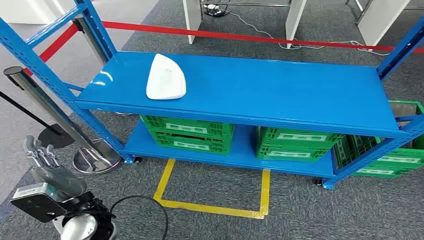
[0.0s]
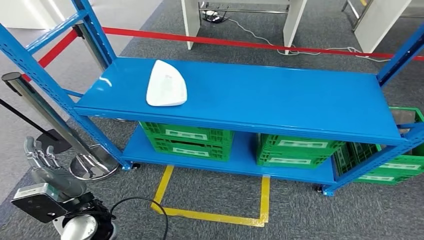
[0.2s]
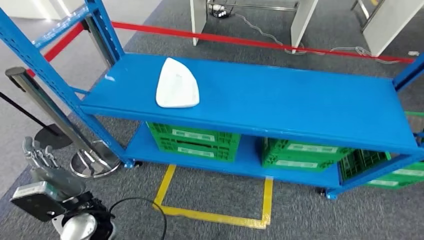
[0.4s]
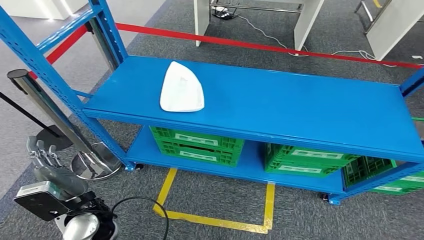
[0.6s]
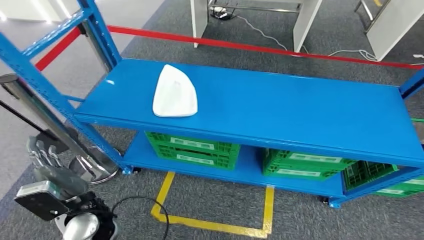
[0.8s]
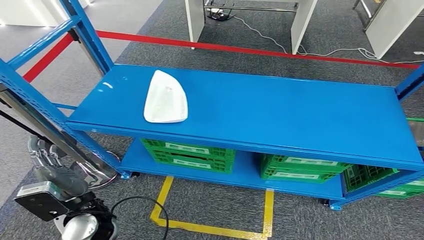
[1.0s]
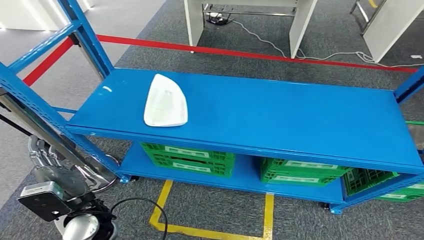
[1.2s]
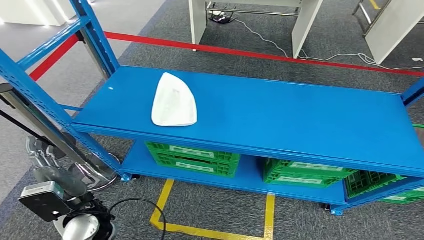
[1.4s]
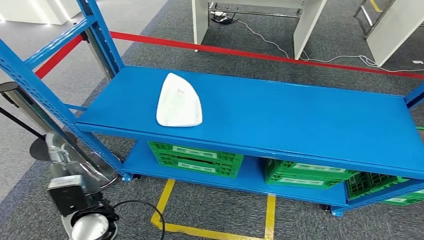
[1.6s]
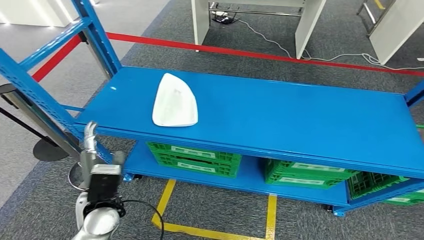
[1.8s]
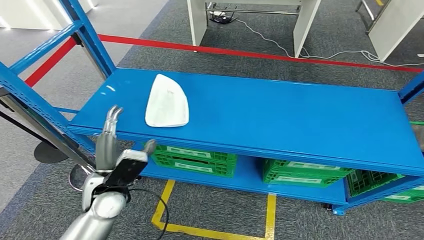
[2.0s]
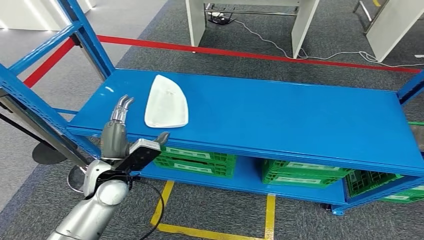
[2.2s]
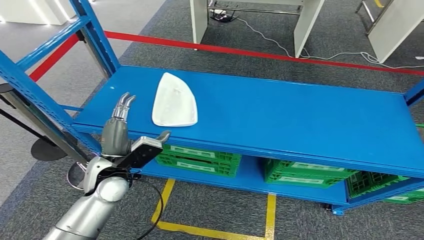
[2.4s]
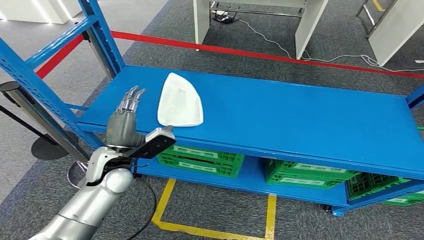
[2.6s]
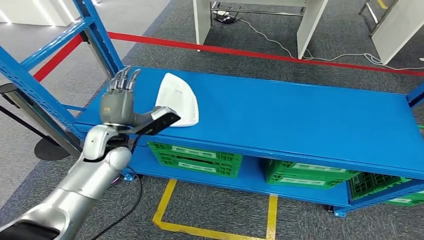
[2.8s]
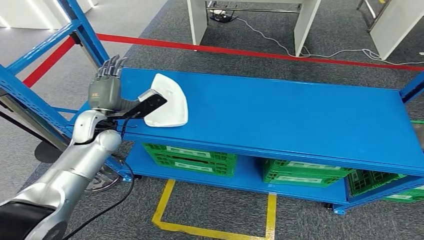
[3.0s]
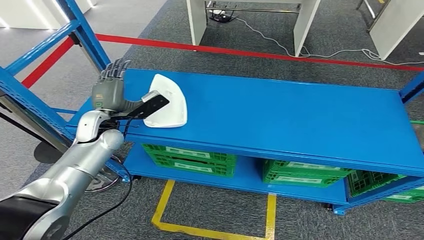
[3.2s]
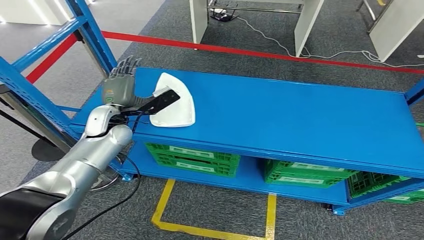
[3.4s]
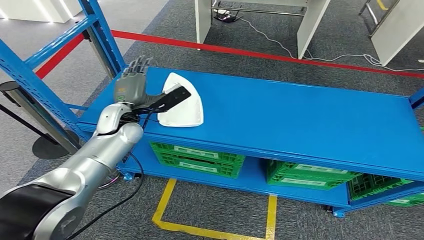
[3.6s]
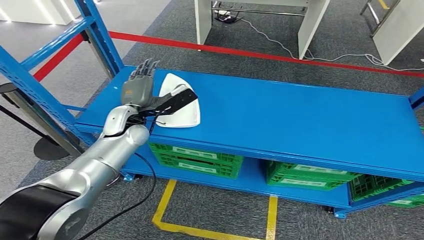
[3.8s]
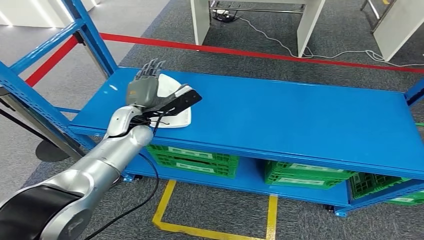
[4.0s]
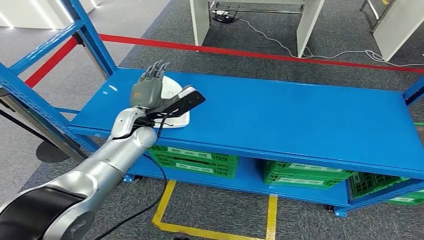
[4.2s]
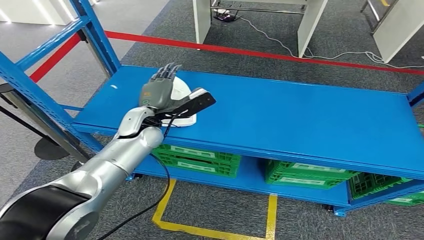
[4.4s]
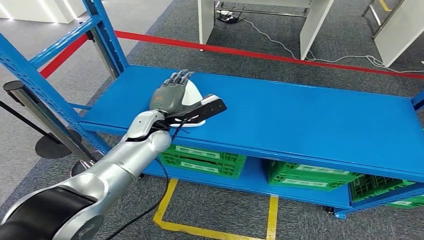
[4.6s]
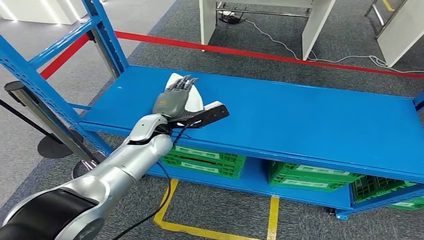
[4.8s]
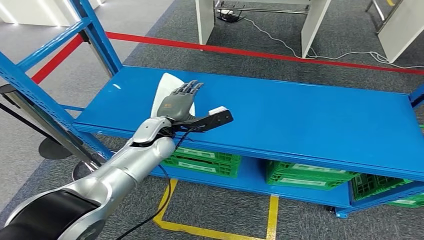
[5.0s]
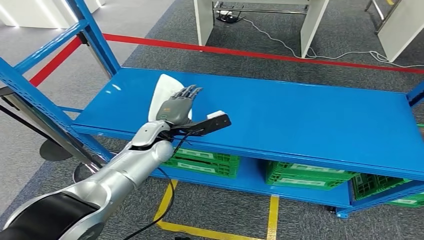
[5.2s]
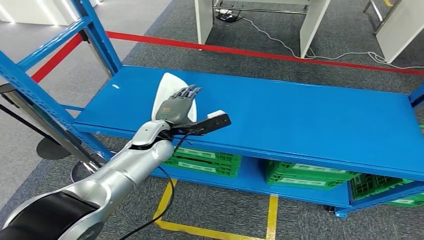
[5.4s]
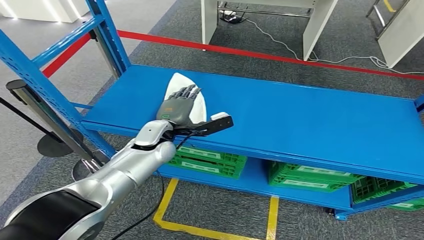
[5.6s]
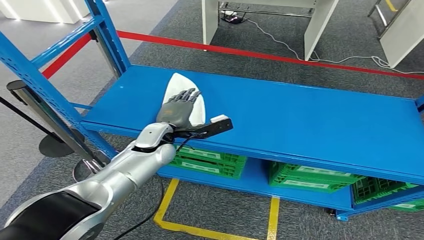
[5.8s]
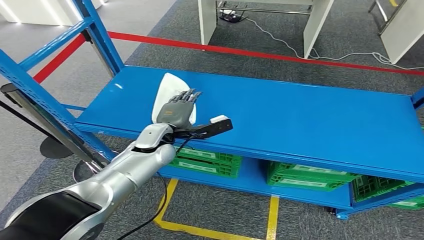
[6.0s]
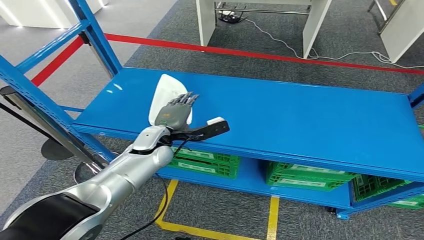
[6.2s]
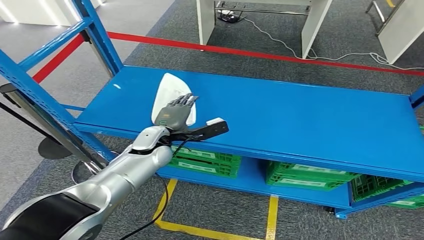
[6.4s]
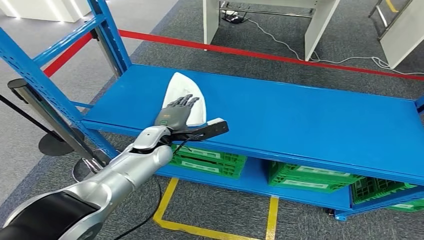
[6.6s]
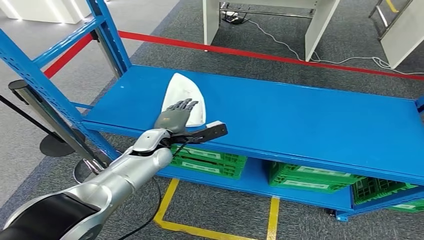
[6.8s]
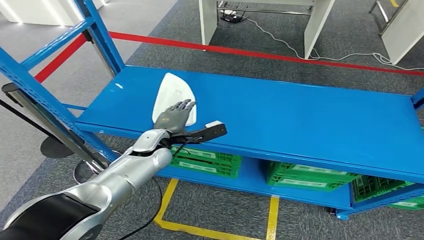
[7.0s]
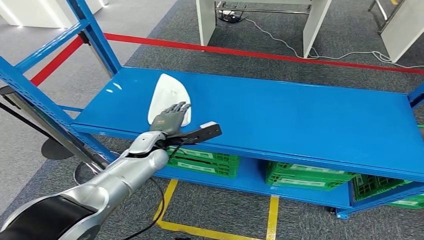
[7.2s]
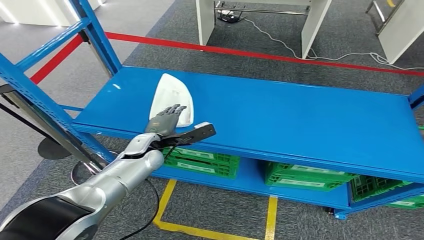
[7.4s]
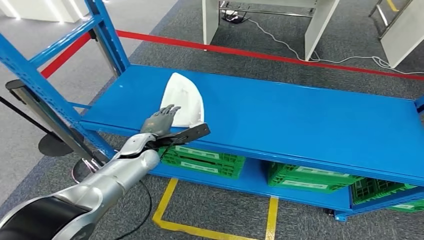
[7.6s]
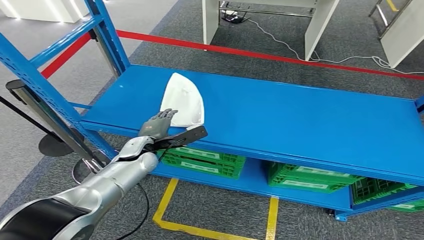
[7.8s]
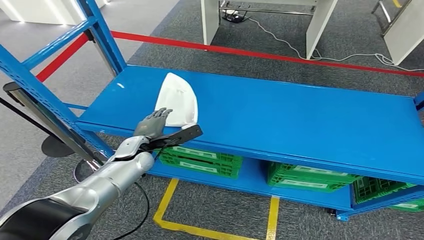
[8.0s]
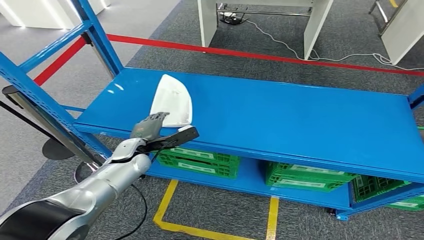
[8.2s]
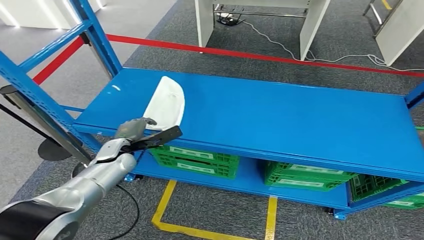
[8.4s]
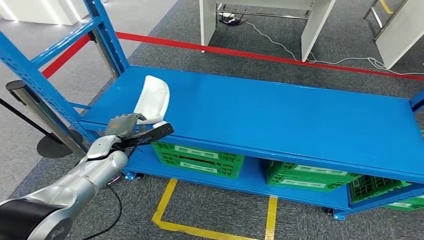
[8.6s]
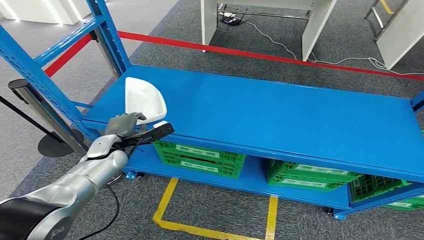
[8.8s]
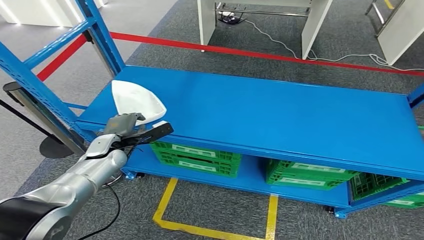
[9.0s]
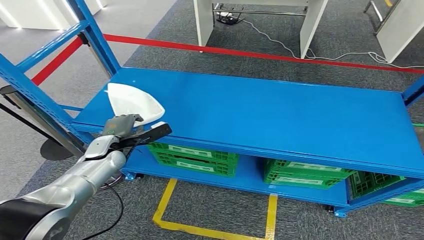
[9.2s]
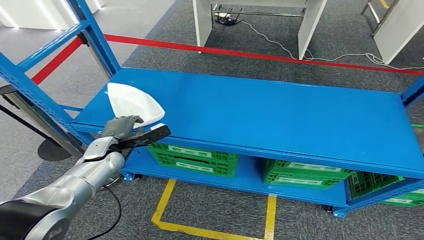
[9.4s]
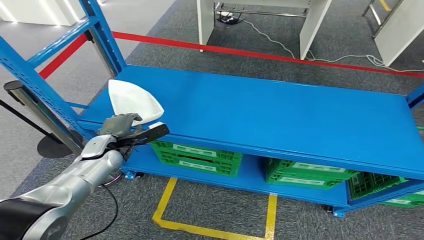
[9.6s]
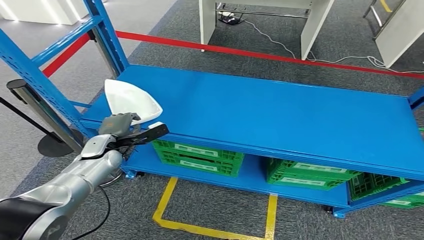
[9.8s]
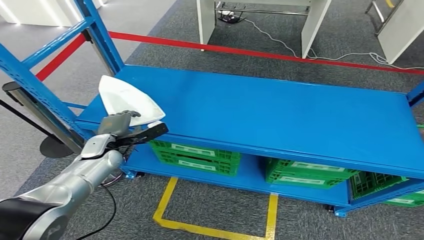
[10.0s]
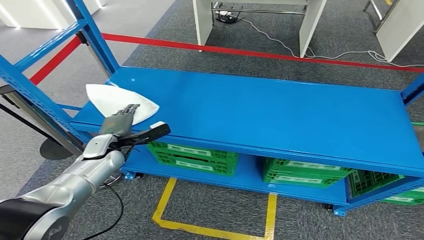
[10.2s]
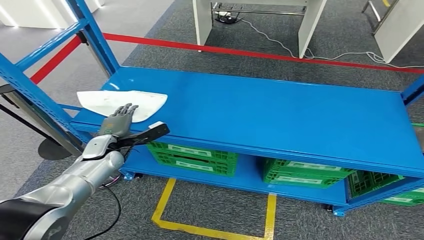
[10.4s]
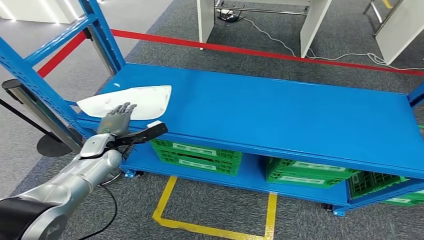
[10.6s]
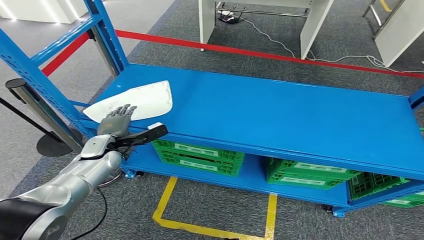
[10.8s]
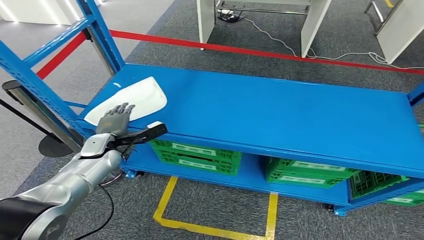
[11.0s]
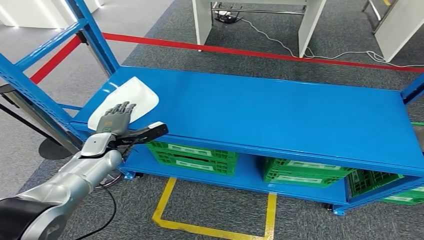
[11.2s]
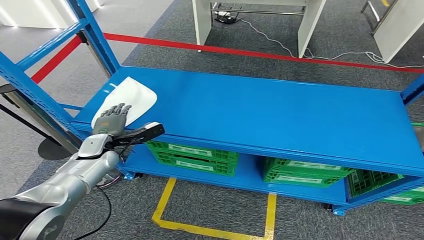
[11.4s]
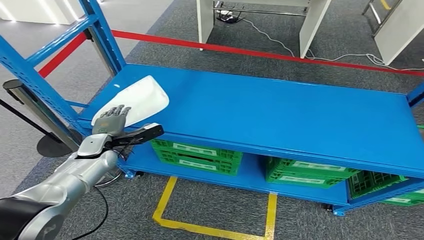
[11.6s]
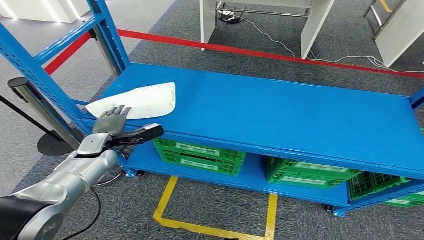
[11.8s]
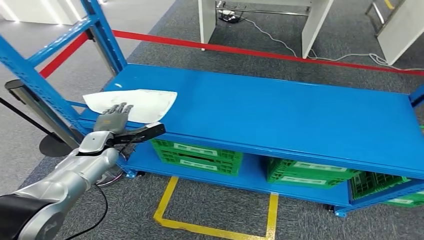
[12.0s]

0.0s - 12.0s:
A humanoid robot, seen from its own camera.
6.0s - 7.6s: The left hand moves about 5 cm.
9.0s - 10.4s: Both hands stay about where they are.

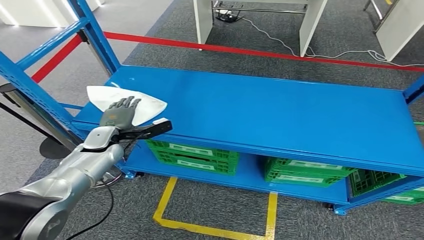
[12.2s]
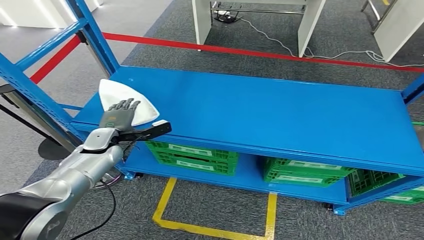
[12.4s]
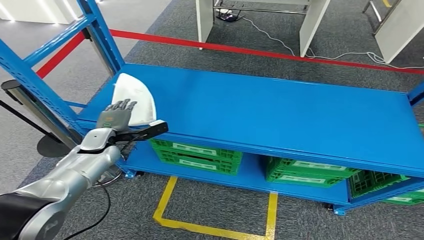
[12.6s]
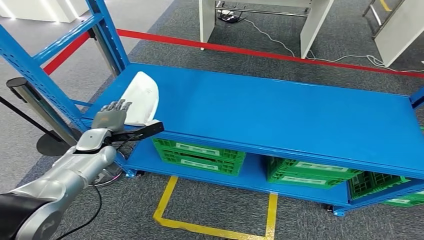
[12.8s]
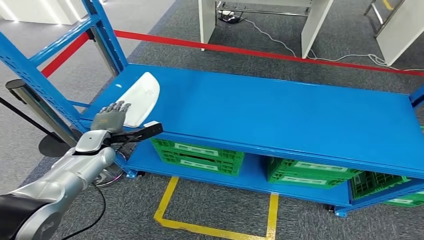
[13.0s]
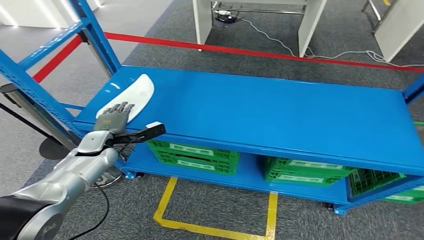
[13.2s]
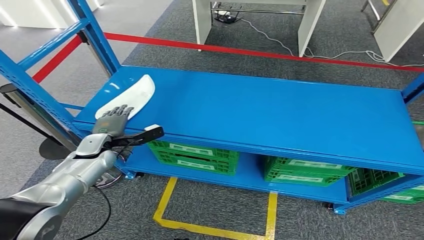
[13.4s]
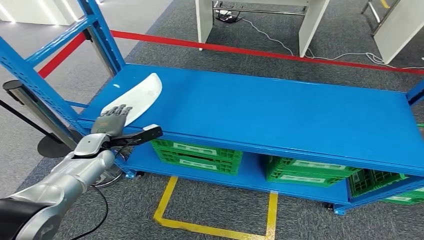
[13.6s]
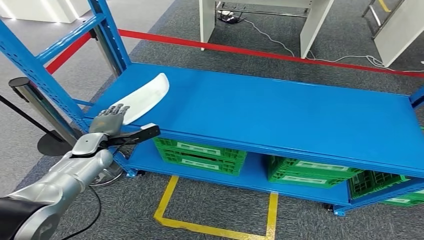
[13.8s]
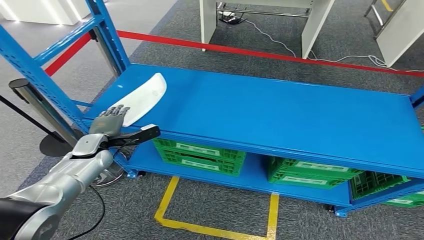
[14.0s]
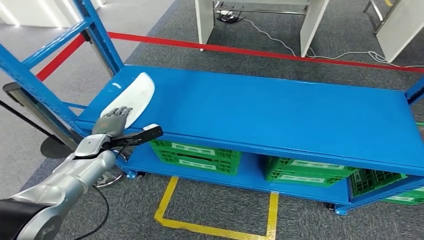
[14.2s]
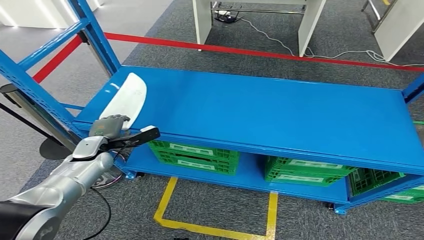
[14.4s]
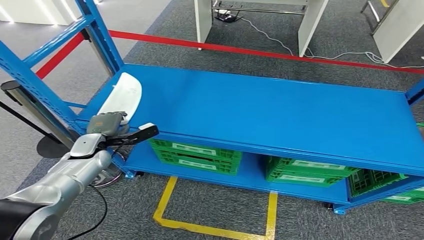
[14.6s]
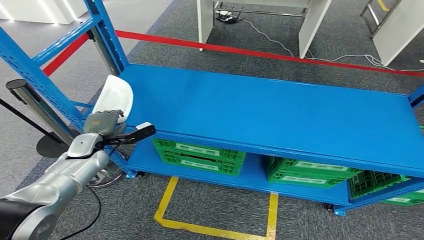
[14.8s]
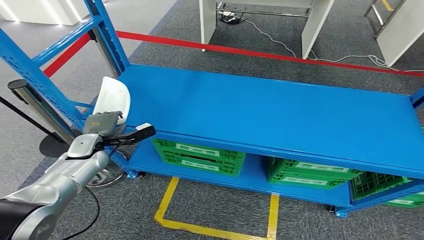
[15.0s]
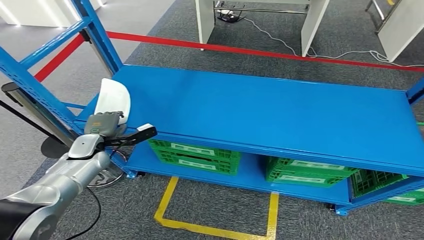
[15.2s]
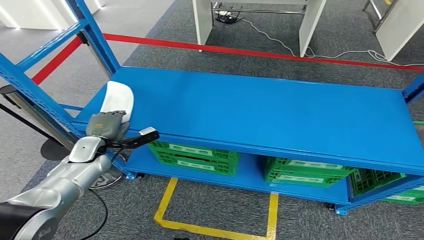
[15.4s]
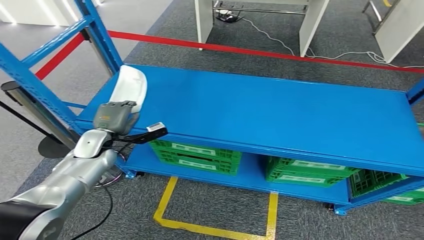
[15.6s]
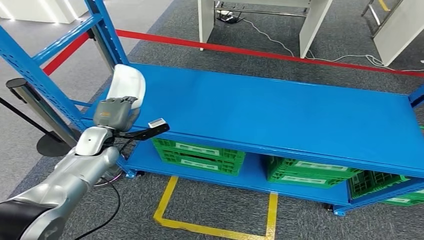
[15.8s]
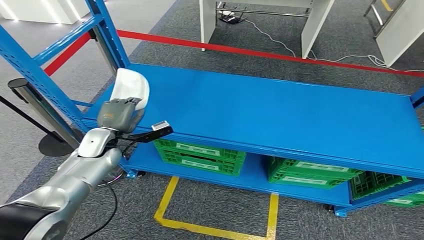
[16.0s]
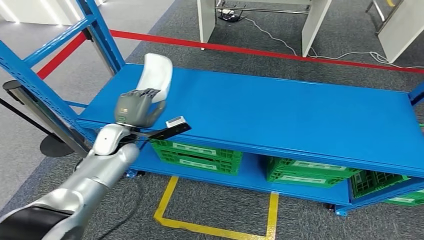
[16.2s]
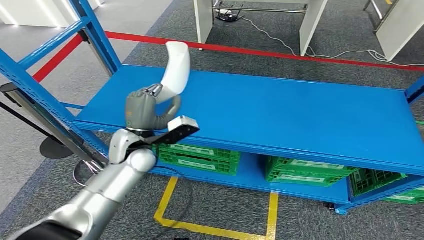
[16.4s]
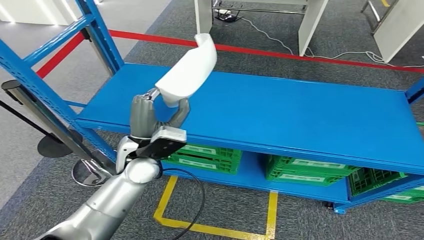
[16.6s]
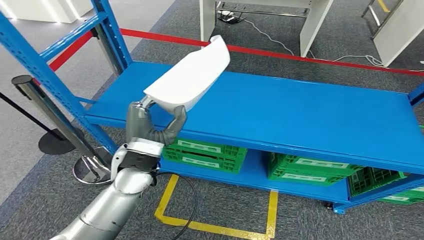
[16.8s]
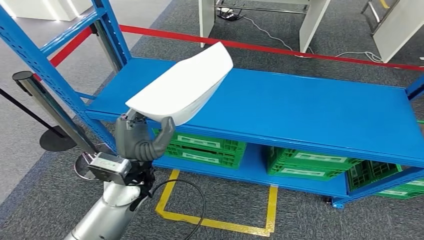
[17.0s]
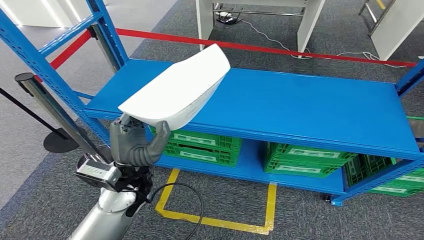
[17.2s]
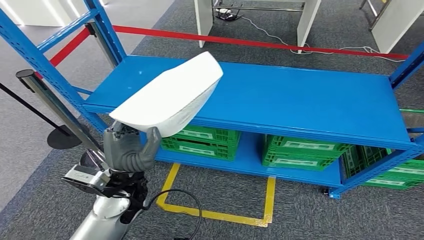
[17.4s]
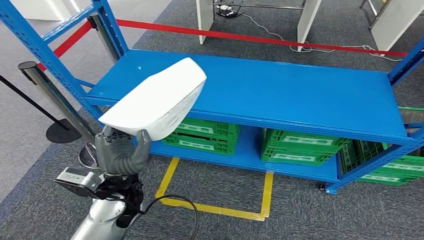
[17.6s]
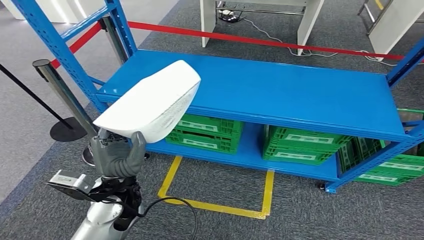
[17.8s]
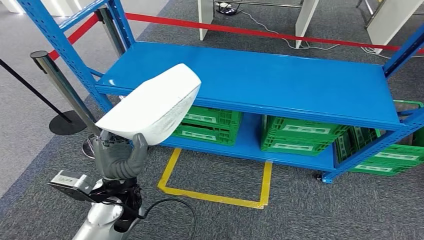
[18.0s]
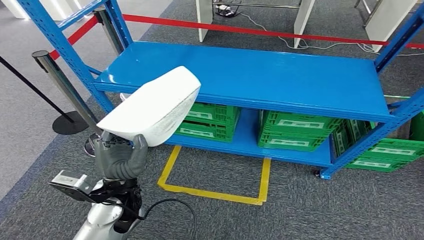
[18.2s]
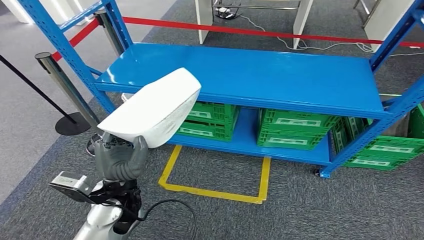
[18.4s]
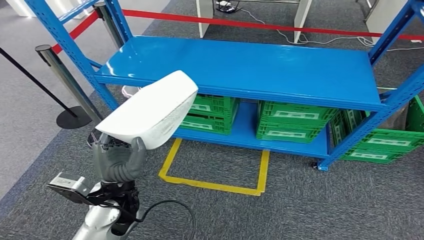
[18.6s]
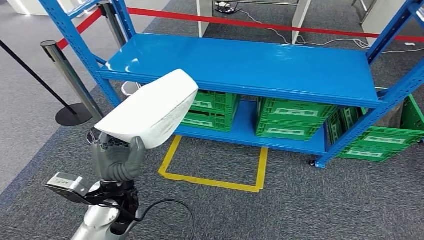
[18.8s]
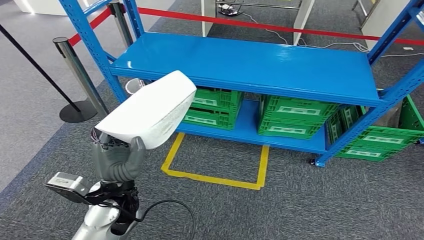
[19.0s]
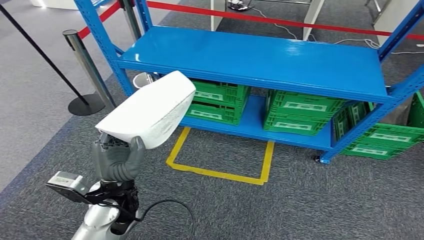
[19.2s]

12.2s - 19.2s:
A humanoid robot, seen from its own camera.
Step, 12.2s - 17.4s: Pick up the small component from the shelf.
12.2s - 13.6s: There are only small adjustments of the hands.
13.6s - 15.0s: Neither hand changes place.
